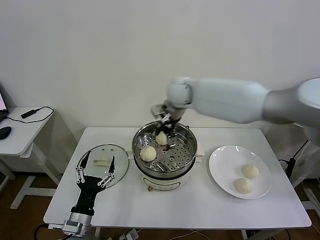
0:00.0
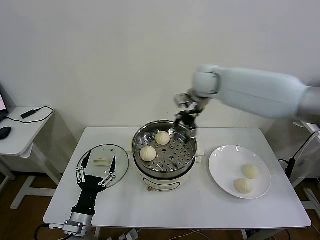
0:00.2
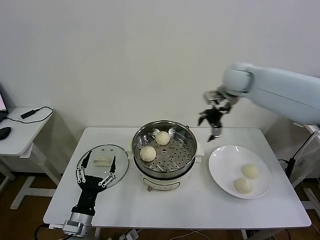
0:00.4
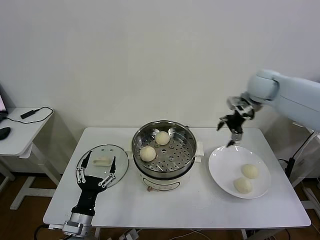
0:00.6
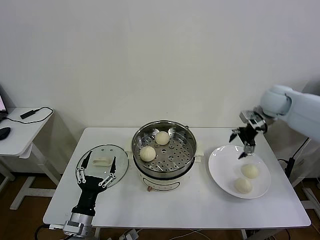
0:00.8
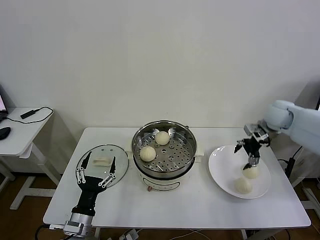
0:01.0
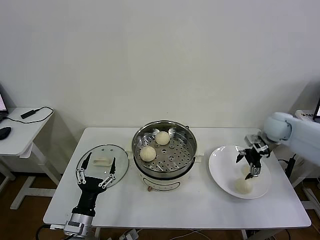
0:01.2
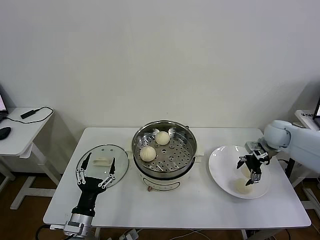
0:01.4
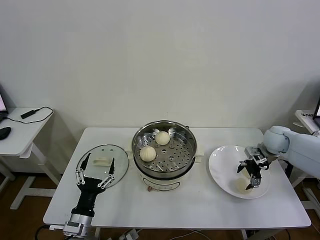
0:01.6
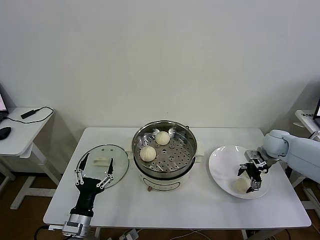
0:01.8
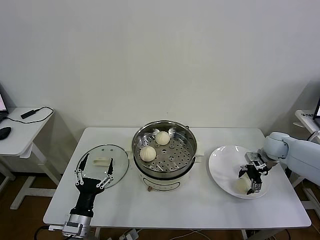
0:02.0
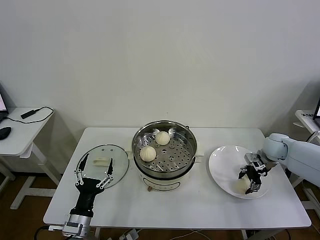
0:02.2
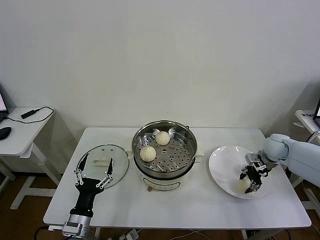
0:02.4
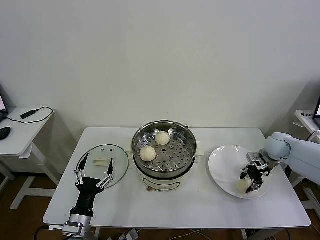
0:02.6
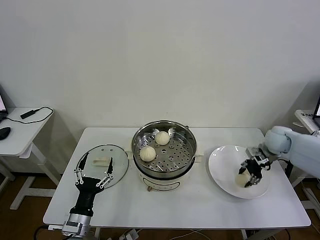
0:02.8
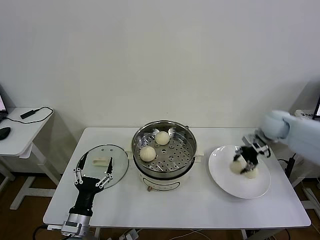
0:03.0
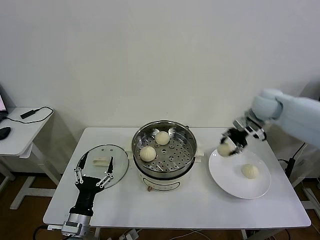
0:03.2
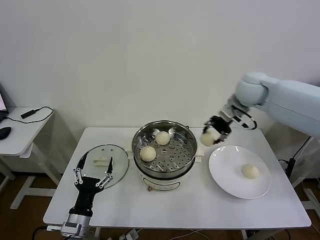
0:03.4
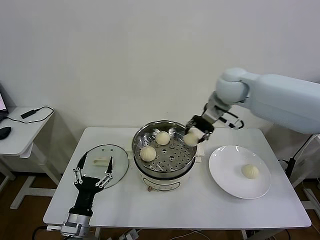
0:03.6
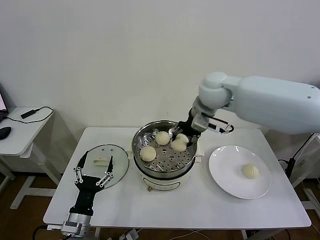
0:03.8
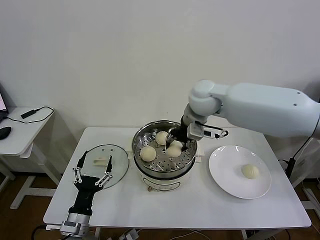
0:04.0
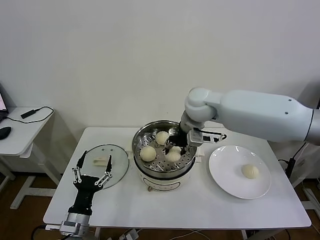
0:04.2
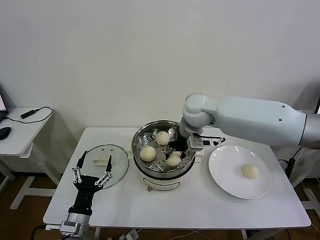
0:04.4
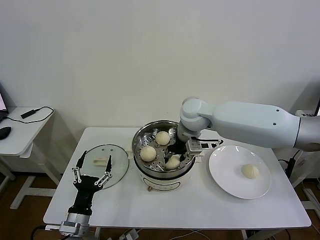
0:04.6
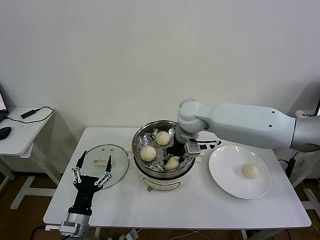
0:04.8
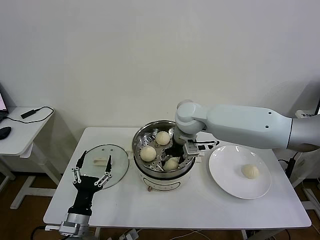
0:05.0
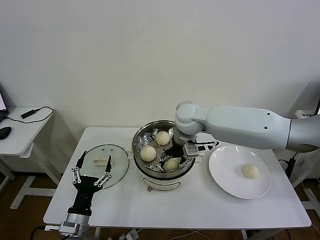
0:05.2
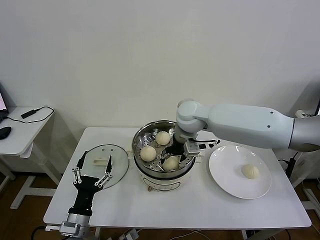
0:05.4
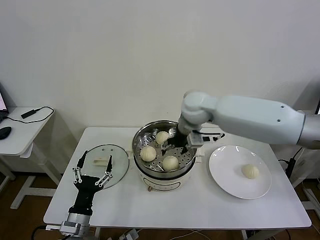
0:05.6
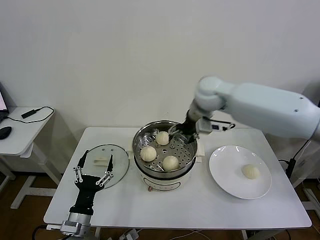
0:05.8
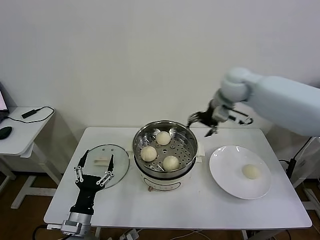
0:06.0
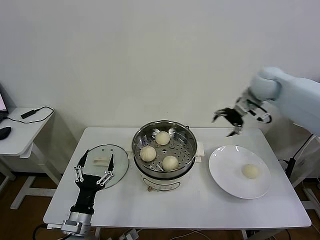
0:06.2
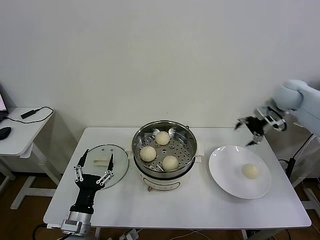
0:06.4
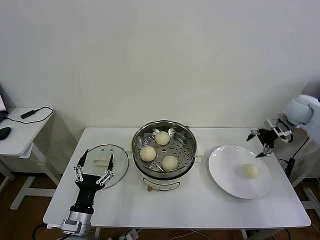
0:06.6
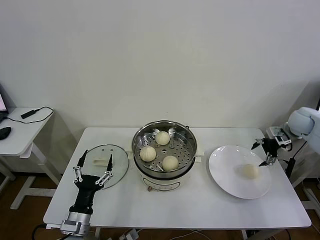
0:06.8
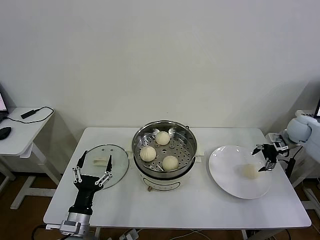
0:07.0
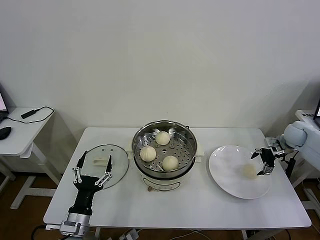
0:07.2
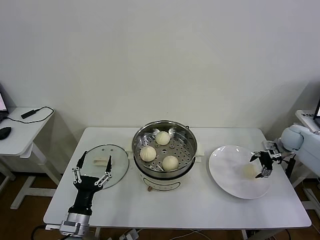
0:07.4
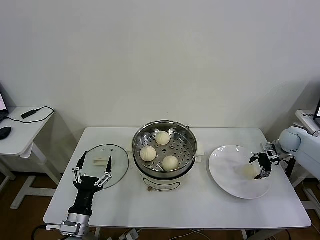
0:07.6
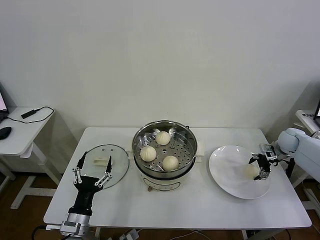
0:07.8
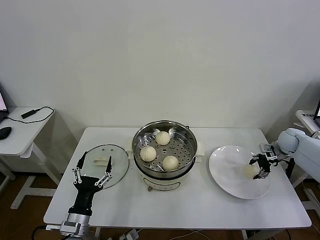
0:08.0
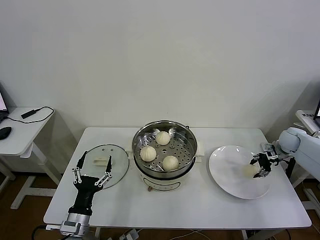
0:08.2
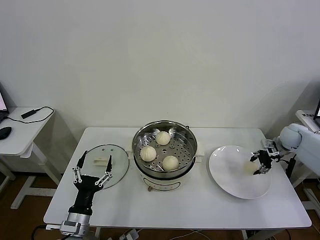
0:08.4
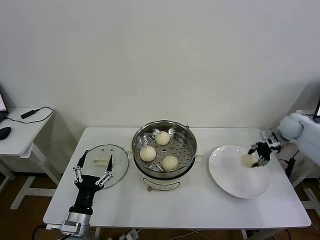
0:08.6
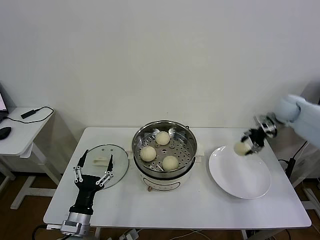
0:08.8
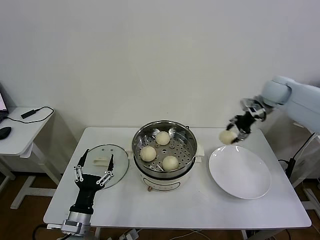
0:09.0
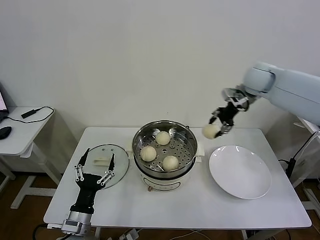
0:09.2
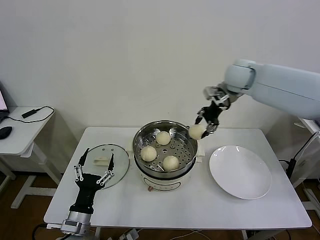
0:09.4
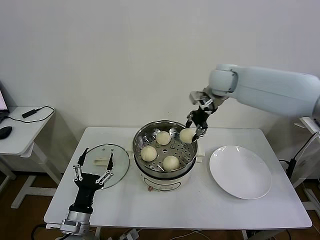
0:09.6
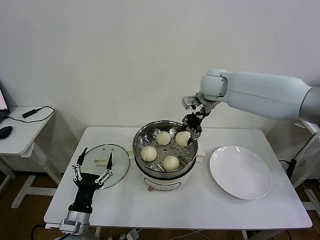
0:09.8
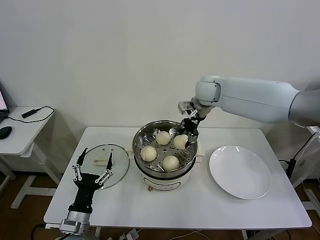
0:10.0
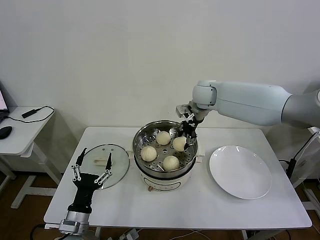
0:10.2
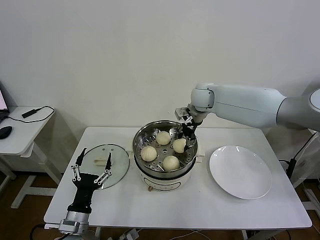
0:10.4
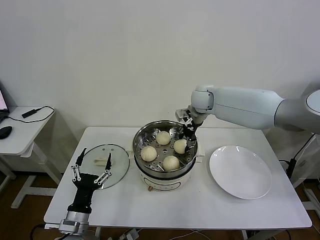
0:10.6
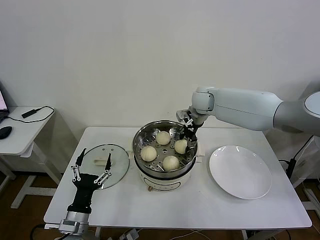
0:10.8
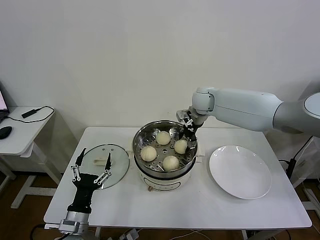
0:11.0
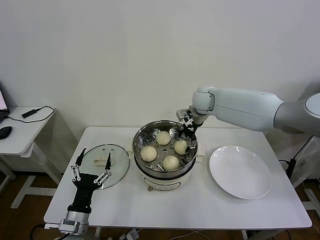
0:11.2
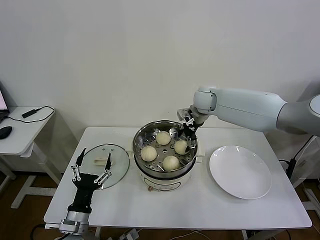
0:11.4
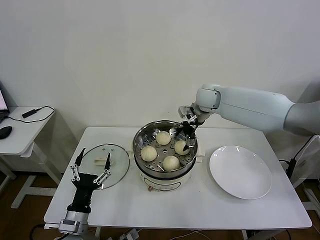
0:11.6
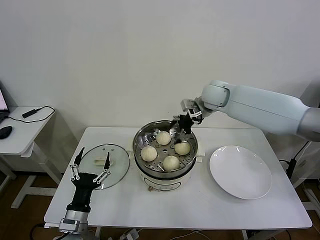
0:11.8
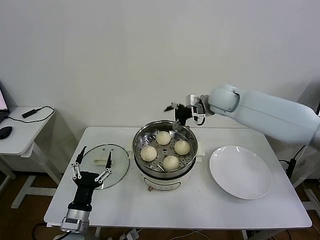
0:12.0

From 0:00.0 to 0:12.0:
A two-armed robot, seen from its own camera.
Task of the whole recording: take steamed baozi put them in steamer then cover it.
Step, from 0:00.0 to 0:02.6: Grasp the baozi in the plate with right gripper.
Step, from 0:02.8 to 0:05.2: Place the baozi on the steamer with right gripper.
Step, from 0:05.4 to 0:08.2: Grasp the baozi in the plate with right gripper.
Step, from 0:08.4 to 0:11.2: Place the baozi on the steamer with right gripper.
From 0:00.0 to 0:01.6: The right gripper heads to the right and downward, covering some 40 cm.
From 0:01.6 to 0:03.0: The right gripper moves upward, about 10 cm, and closes its fingers.
From 0:03.0 to 0:04.4: The right gripper shifts about 30 cm to the left.
From 0:04.4 to 0:06.0: The right gripper heads to the right, upward and forward, covering about 15 cm, and opens up.
From 0:06.0 to 0:07.6: The right gripper travels to the right and downward by approximately 35 cm.
From 0:07.6 to 0:09.0: The right gripper is displaced upward and to the left by roughly 25 cm, and closes up.
From 0:09.0 to 0:10.4: The right gripper heads to the left, covering approximately 20 cm.
From 0:10.4 to 0:12.0: The right gripper heads to the right, covering approximately 5 cm, and opens its fingers.

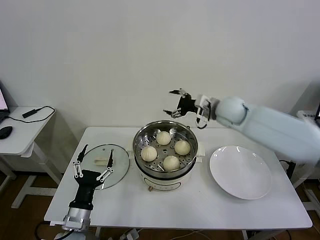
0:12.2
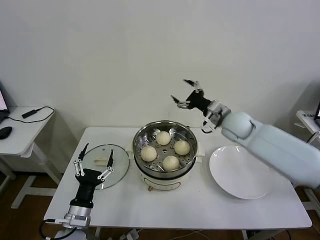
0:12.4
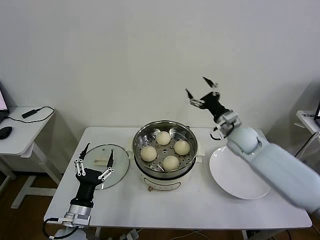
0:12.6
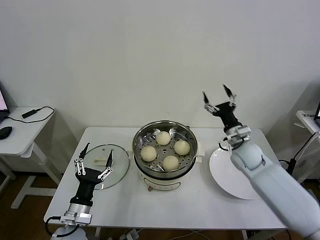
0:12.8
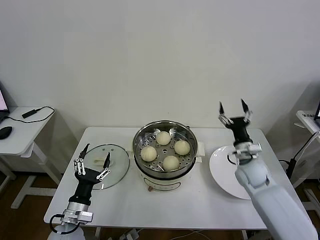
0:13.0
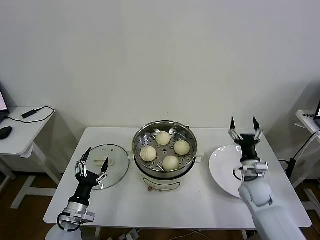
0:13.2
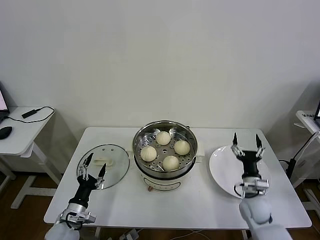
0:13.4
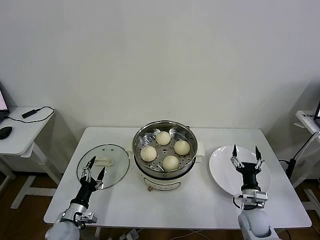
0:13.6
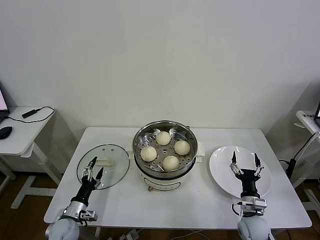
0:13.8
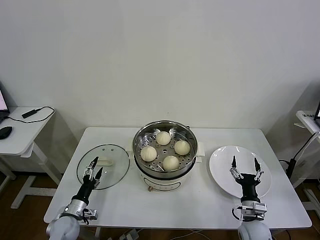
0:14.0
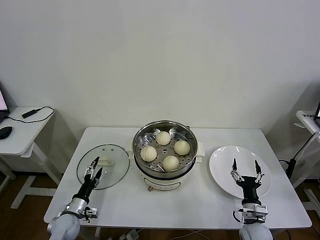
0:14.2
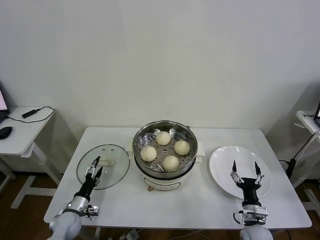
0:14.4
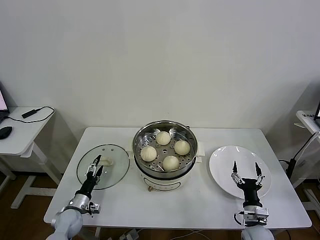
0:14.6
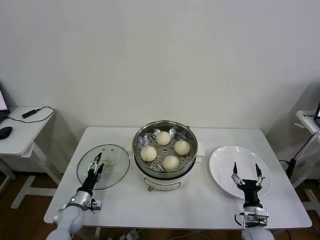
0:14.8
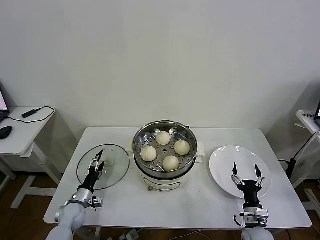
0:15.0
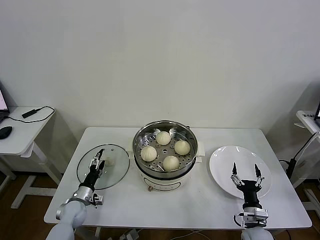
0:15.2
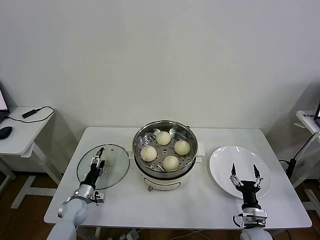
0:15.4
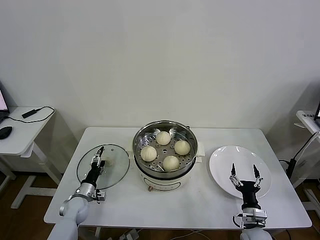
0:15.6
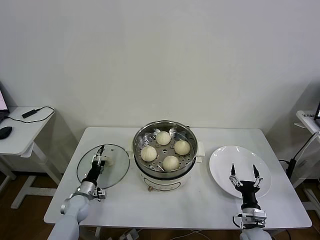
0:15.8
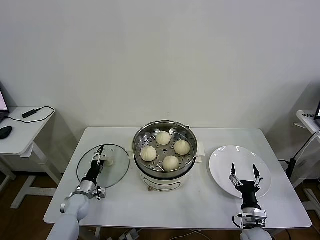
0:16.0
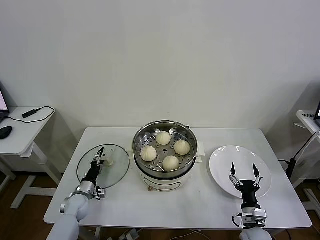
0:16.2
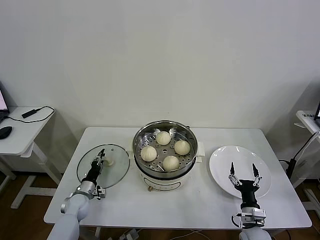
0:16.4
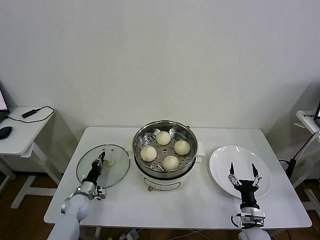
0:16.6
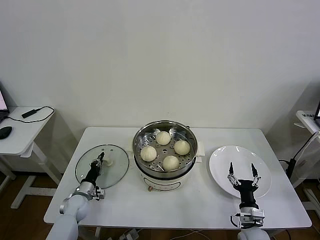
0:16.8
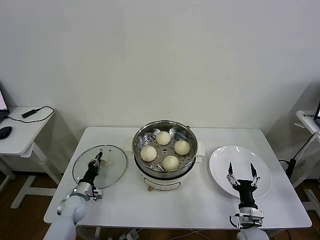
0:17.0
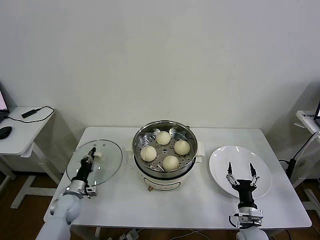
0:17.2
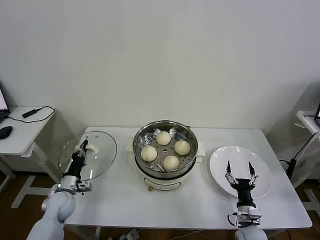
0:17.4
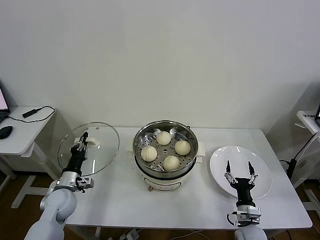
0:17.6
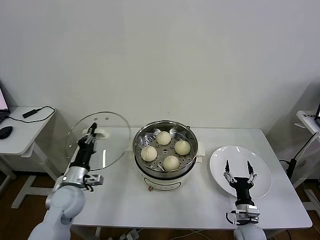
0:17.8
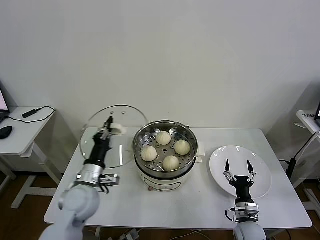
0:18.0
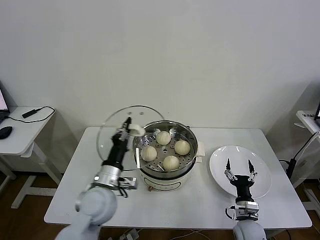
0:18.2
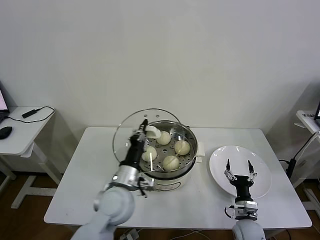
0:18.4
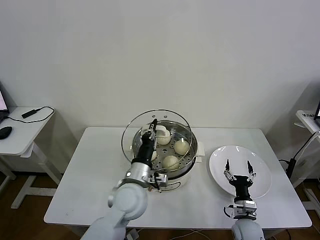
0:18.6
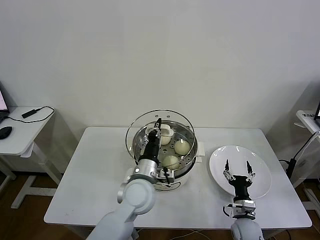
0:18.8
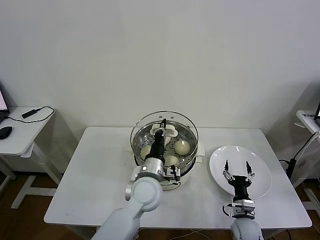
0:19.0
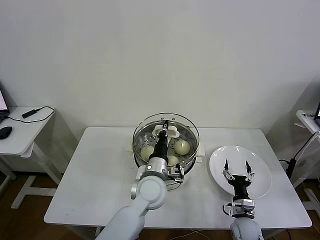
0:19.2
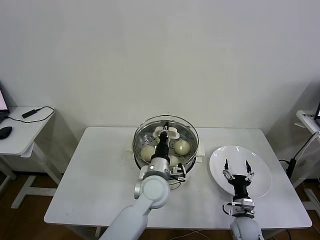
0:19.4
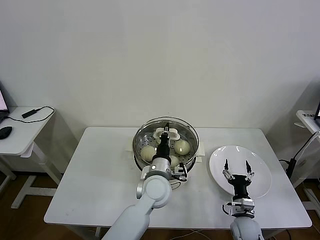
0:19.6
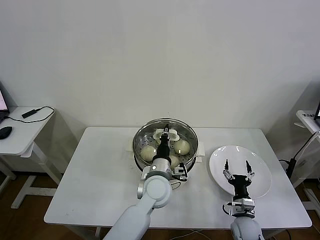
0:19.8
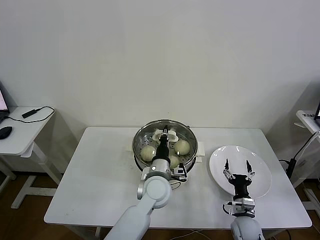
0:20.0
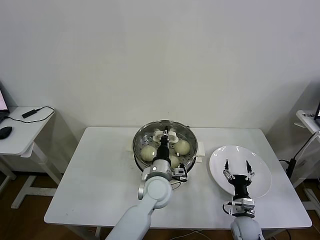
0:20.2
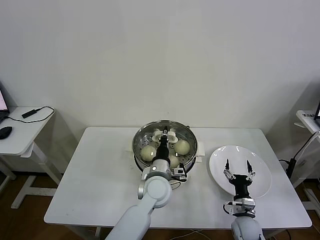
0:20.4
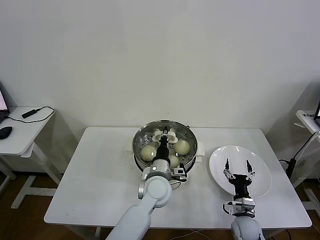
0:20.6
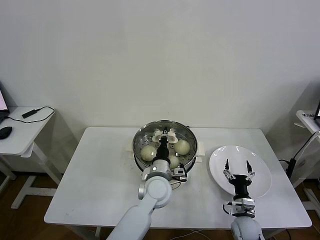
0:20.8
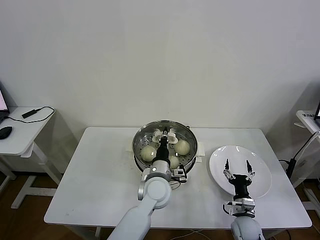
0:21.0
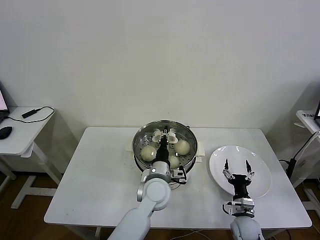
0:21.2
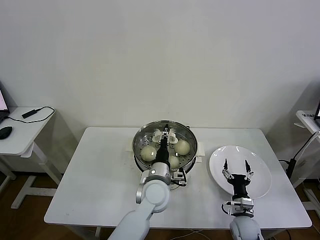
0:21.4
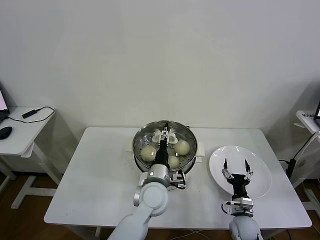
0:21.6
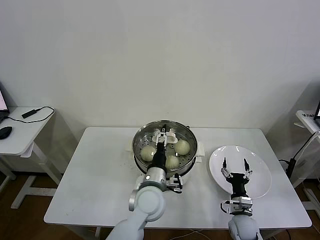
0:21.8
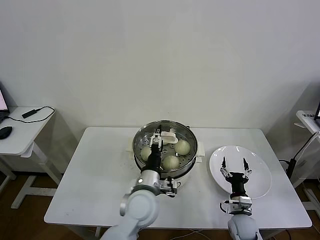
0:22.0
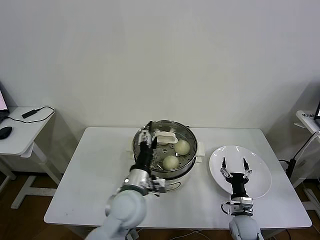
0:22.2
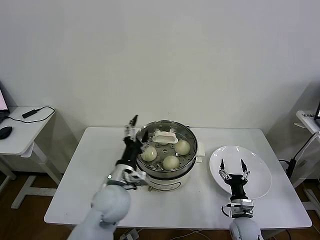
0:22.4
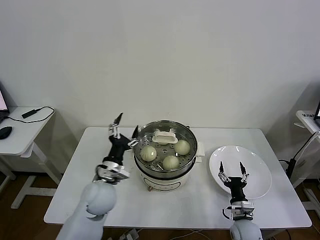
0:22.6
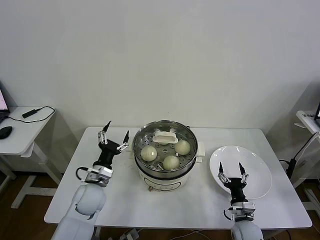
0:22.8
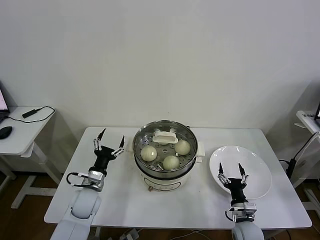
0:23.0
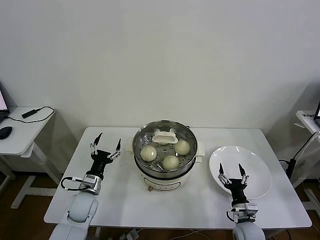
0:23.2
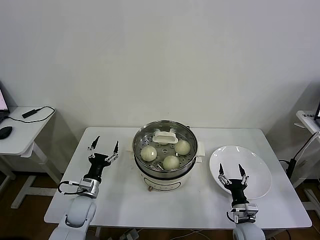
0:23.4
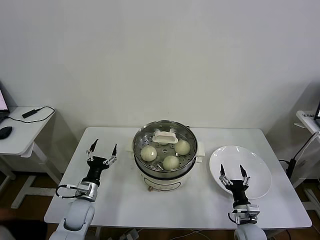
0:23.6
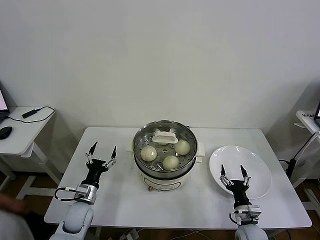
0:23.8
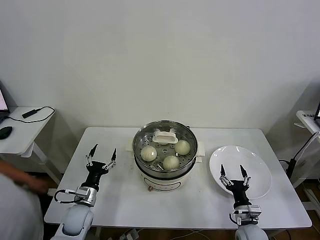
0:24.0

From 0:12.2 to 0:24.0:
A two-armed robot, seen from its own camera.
Task of the whole recording: take steamed baozi put them in steamer then cover it.
Step, from 0:12.2 to 0:17.0: Grasp the pot lid with left gripper.
Step, from 0:17.2 to 0:21.4: Place the pot lid on the steamer with left gripper.
From 0:12.2 to 0:13.6: The left gripper heads downward and to the left, covering about 15 cm. The right gripper moves downward and backward, roughly 40 cm.
From 0:13.6 to 0:15.2: The left gripper goes roughly 10 cm forward. Meanwhile the right gripper moves backward, approximately 5 cm.
From 0:15.2 to 0:16.6: The left gripper closes its fingers.
From 0:16.6 to 0:18.2: The left gripper moves upward and to the right, some 30 cm.
From 0:18.2 to 0:19.6: The left gripper moves to the right, approximately 15 cm.
From 0:19.6 to 0:21.0: The grippers make only small movements.
From 0:21.0 to 0:22.6: The left gripper heads to the left, covering approximately 15 cm, and opens.
From 0:22.6 to 0:24.0: The left gripper heads downward and to the left, covering some 20 cm.
